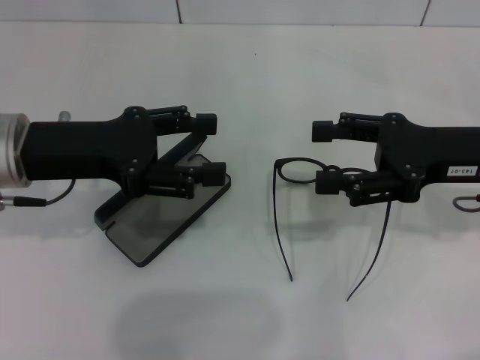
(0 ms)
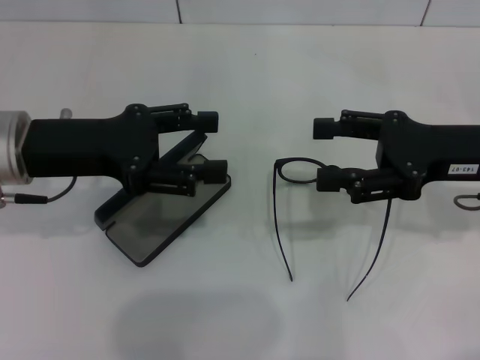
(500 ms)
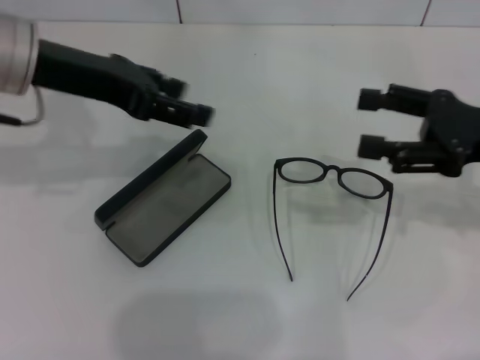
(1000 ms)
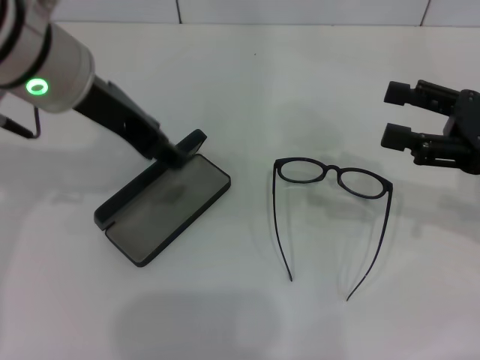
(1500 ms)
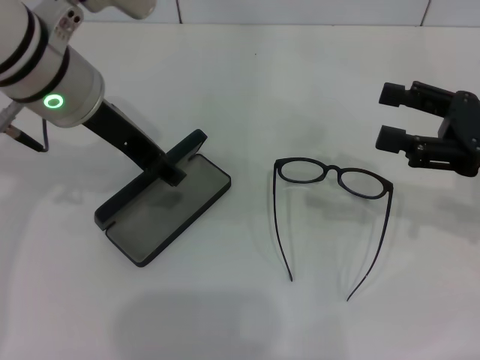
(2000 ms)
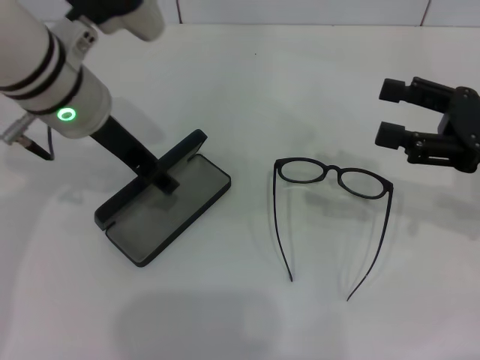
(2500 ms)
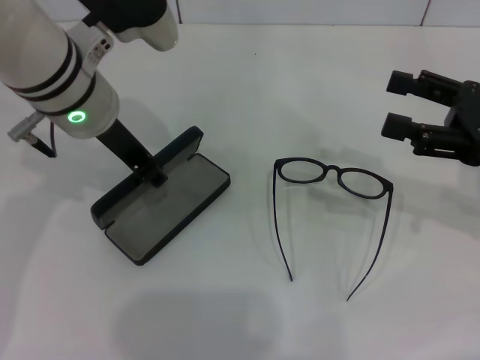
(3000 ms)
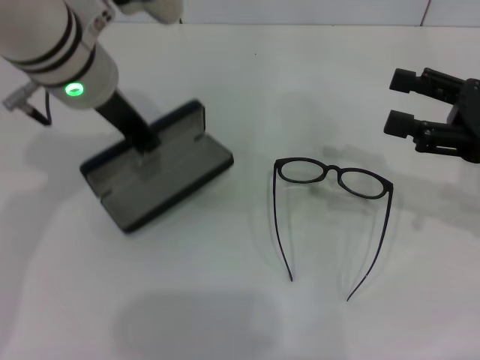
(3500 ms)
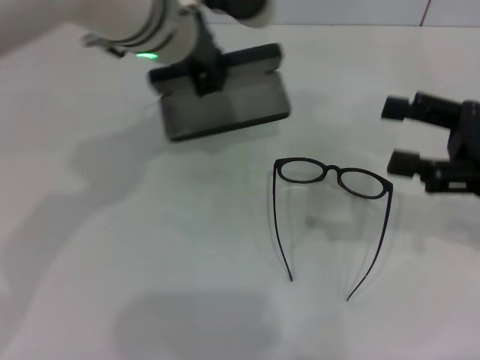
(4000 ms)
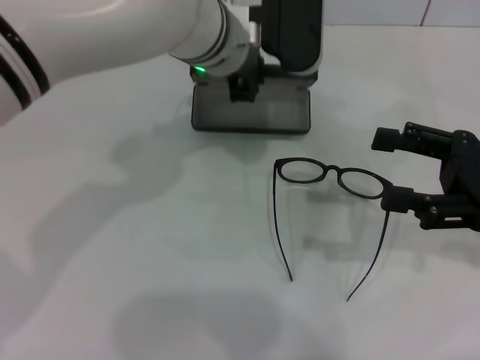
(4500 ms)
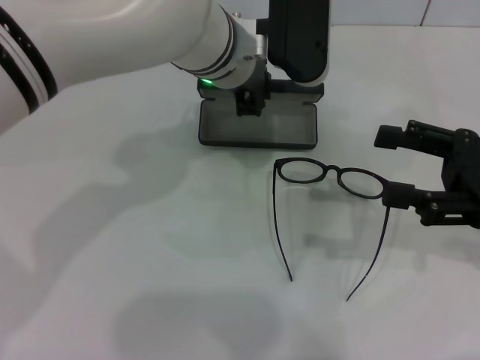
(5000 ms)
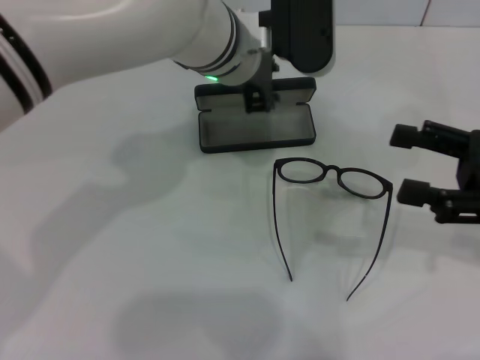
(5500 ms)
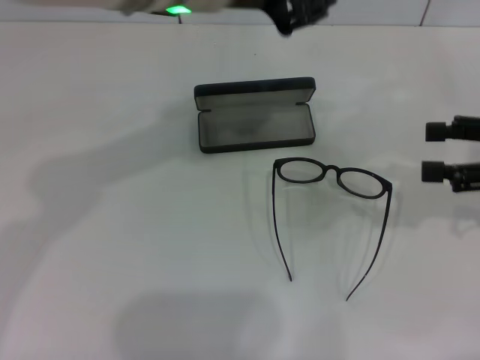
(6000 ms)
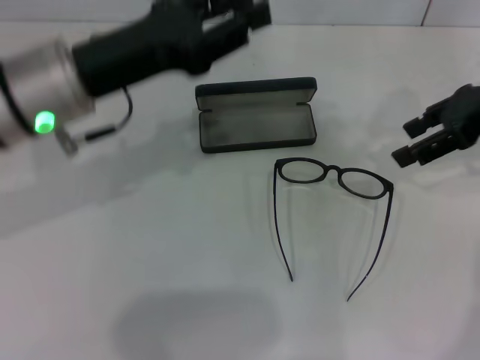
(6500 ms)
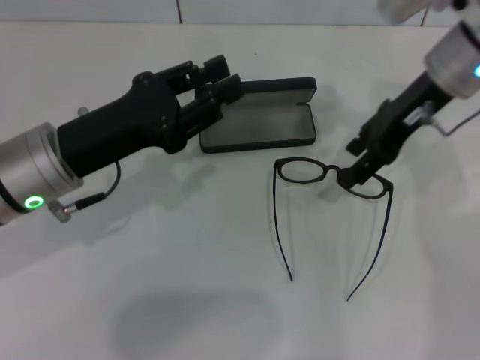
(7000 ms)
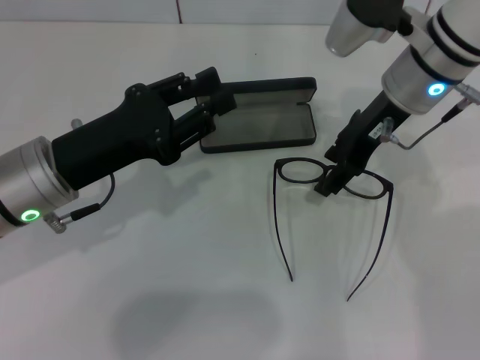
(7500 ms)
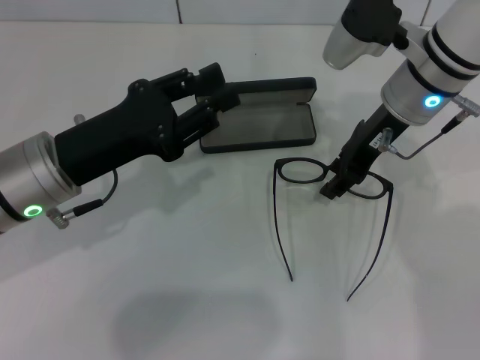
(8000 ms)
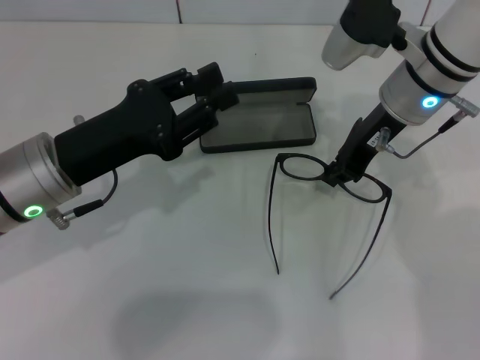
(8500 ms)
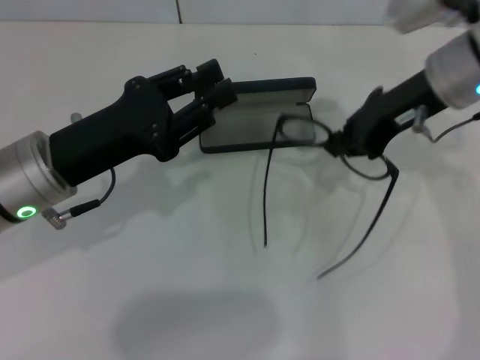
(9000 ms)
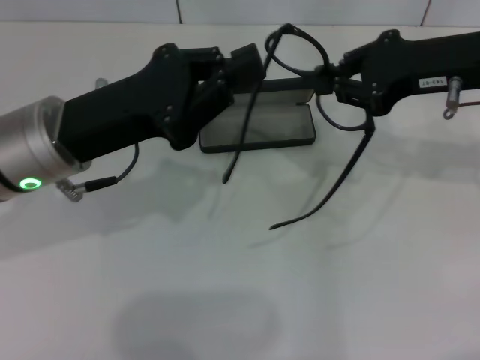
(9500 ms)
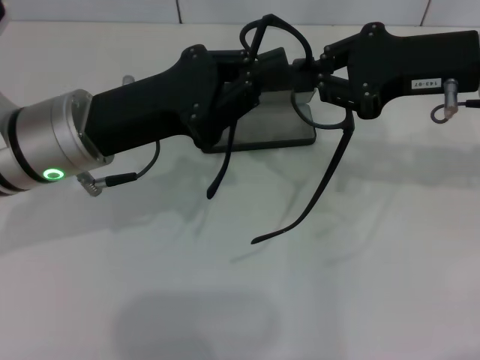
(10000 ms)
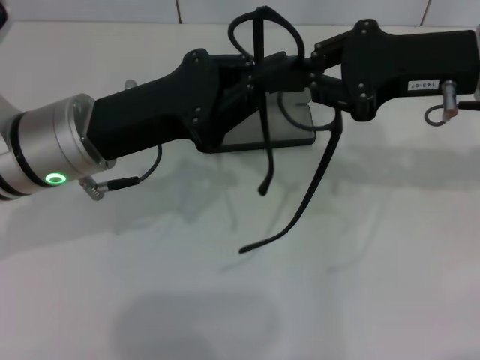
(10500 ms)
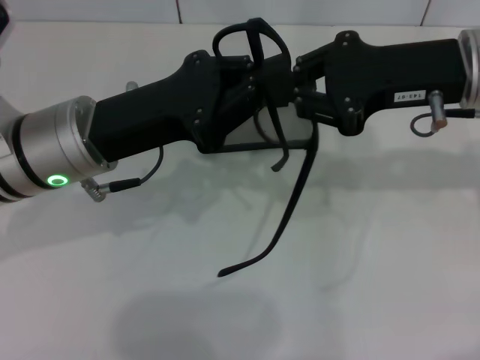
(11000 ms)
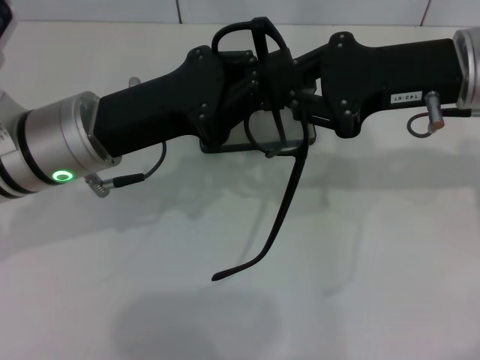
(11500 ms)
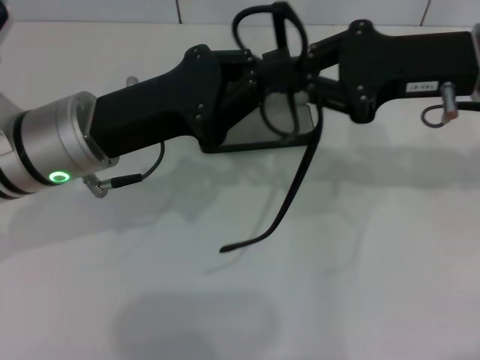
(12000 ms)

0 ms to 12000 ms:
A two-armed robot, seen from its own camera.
Step, 0 ms to 2500 ms: Grab the glasses case with your left hand.
Step, 3000 ms to 5500 ms: Place the glasses case in the center of the table with your left hand.
Step, 6000 ms to 8000 ms: Grab the eyeglass frame with your right hand.
0 ms to 2000 ms: The left gripper shifts roughly 10 cm to the right and upward, while the right gripper shifts by some 5 cm.
2000 ms to 4000 ms: The left gripper shifts roughly 10 cm to the right, and closes up.
4000 ms to 6000 ms: The left gripper heads upward, covering about 5 cm.
6000 ms to 8000 ms: The left gripper goes approximately 20 cm downward and to the left. Meanwhile the right gripper goes some 20 cm to the left and forward.
8000 ms to 10000 ms: The right gripper shifts some 10 cm to the right, backward and upward, and closes its fingers. The left gripper moves roughly 5 cm, and closes.
10000 ms to 12000 ms: The grippers make only small movements.

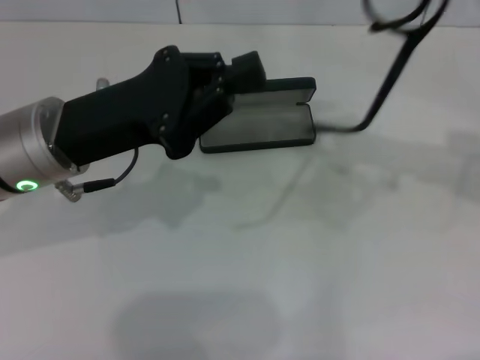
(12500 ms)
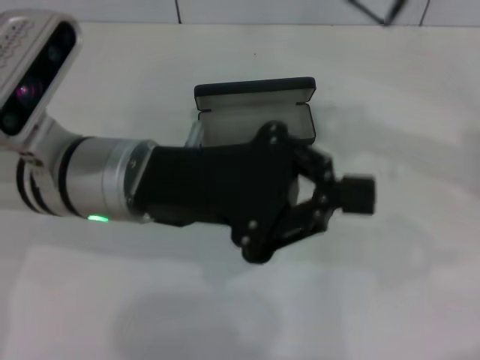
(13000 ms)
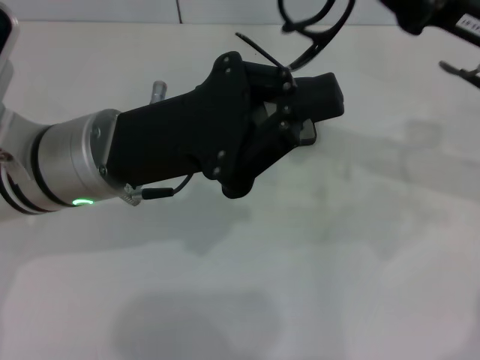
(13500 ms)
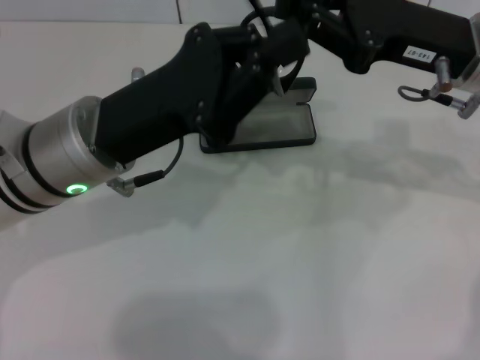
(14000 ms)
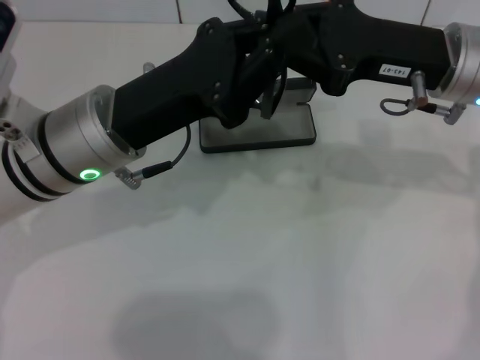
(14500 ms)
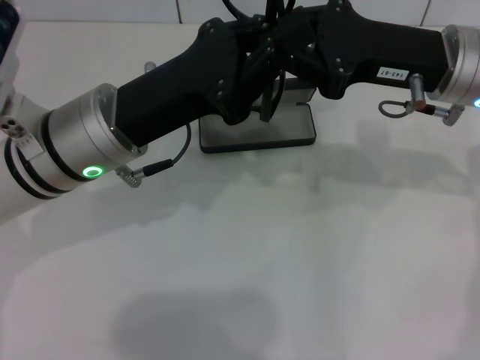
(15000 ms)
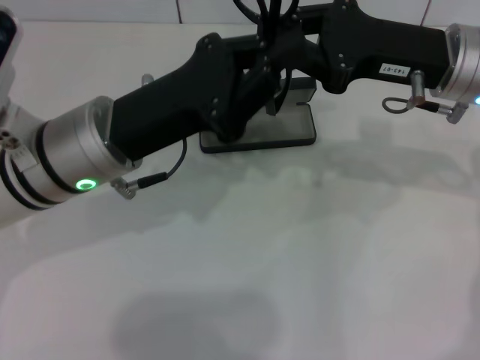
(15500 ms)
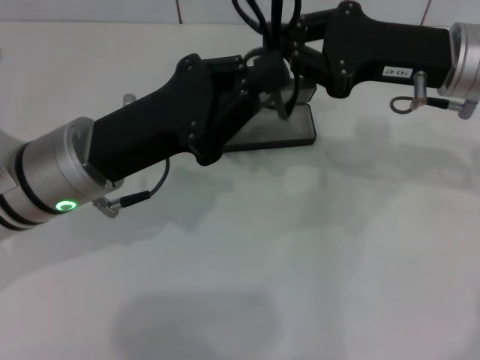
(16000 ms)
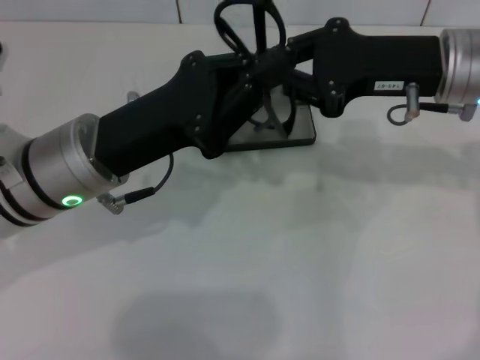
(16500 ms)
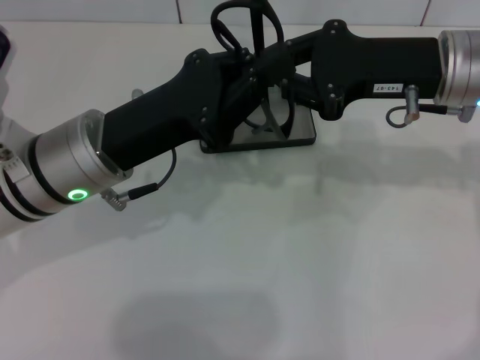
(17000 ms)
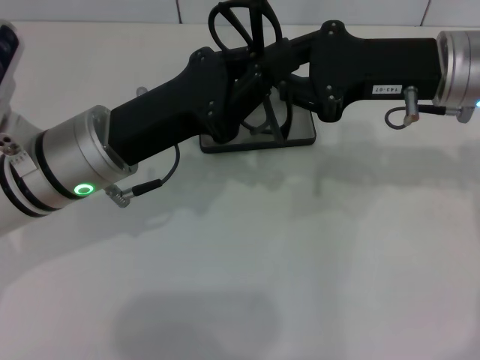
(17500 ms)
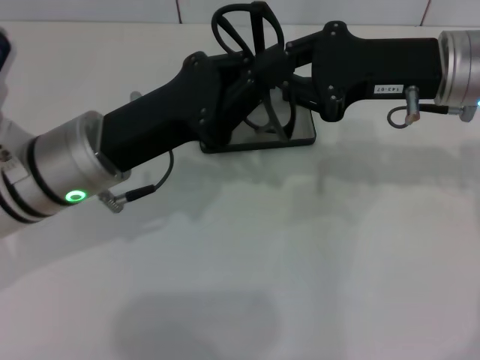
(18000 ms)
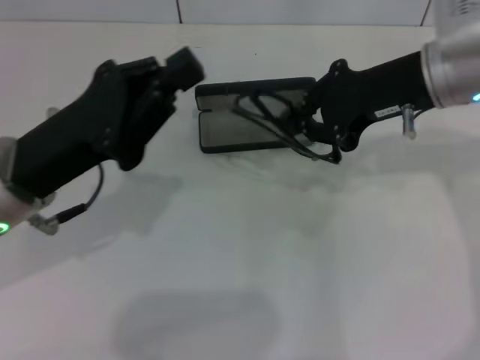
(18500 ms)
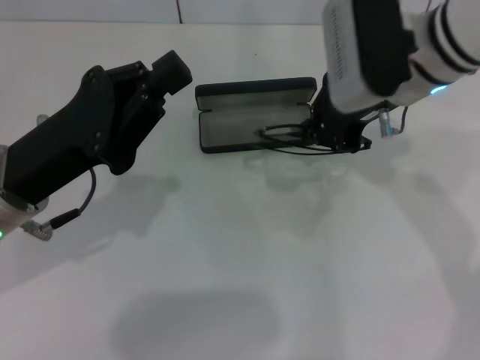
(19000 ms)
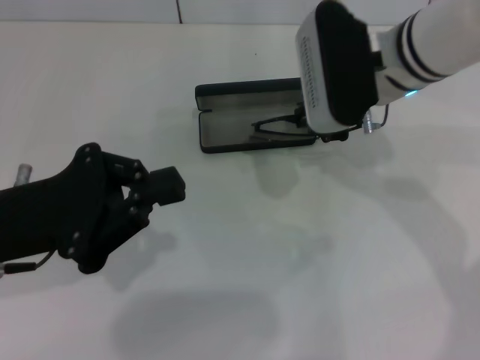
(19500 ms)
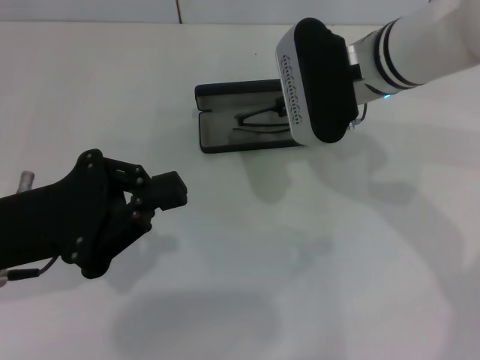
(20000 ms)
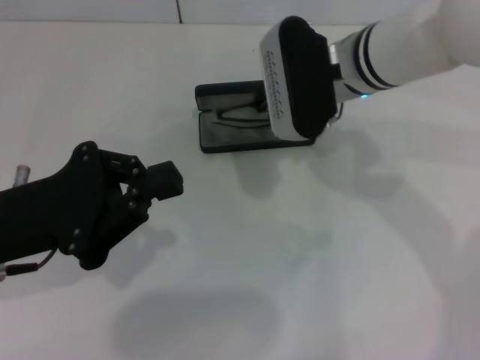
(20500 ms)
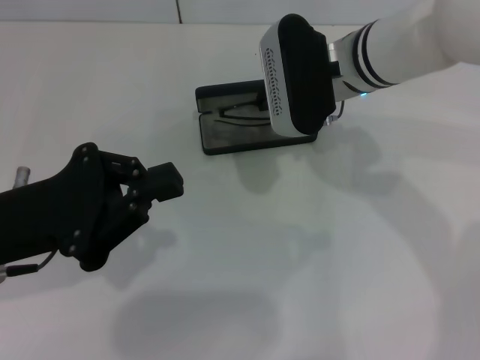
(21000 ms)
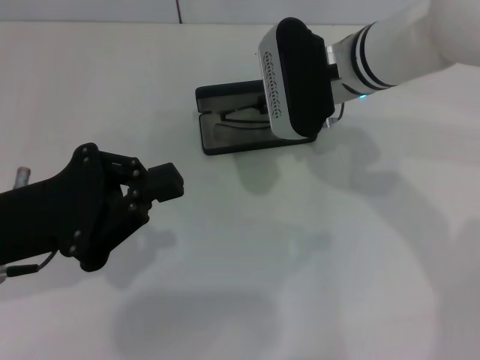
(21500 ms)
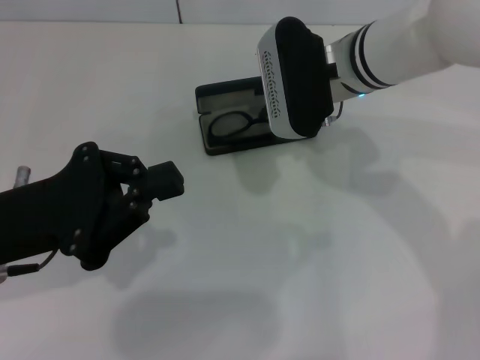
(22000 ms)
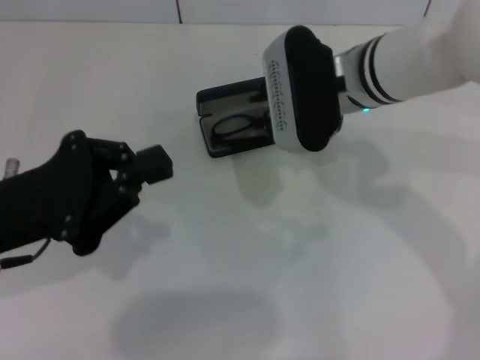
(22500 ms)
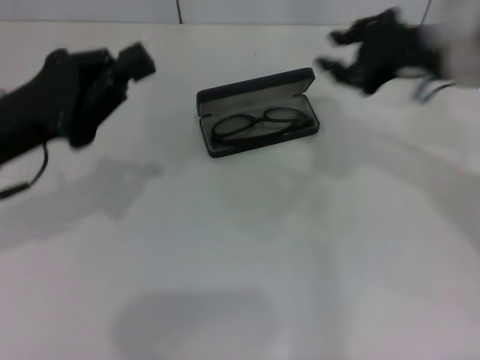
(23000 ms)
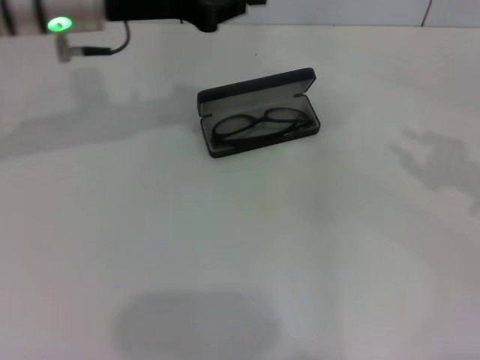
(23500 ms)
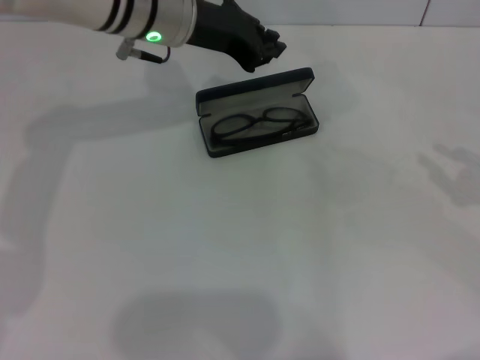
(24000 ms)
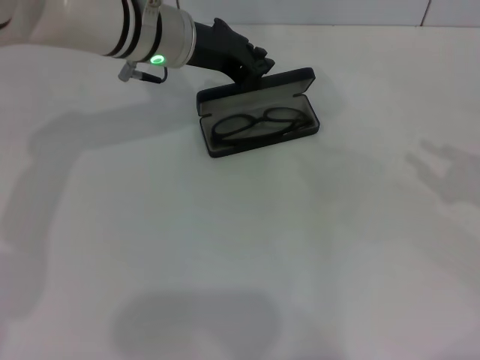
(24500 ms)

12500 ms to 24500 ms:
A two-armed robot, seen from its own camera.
Step, 12500 ms to 16000 ms: Fold the frame with your left hand.
Step, 17000 ms to 22000 ms: Put the glasses into the case with your right hand.
12500 ms to 14500 ms: The right gripper moves to the left and downward, roughly 10 cm.
14500 ms to 16500 ms: The grippers make only small movements.
16500 ms to 18500 ms: The left gripper travels to the left by some 5 cm.
18500 ms to 20500 ms: The right gripper heads to the left, covering approximately 10 cm.
20500 ms to 22500 ms: The right gripper opens.
22500 ms to 24500 ms: The left gripper goes roughly 25 cm forward and to the right. Meanwhile the right gripper is displaced to the right and backward by about 30 cm.

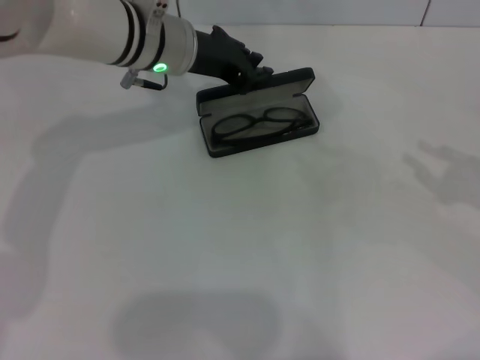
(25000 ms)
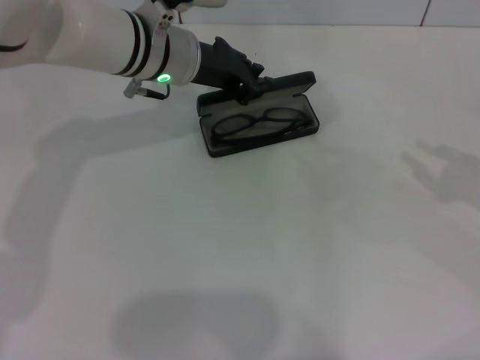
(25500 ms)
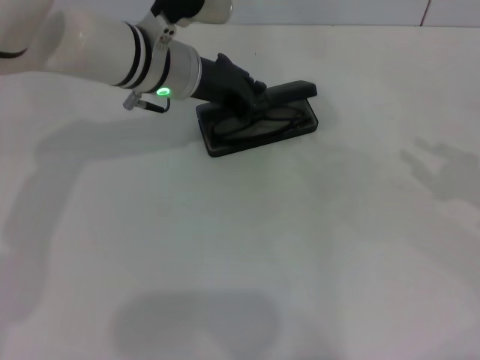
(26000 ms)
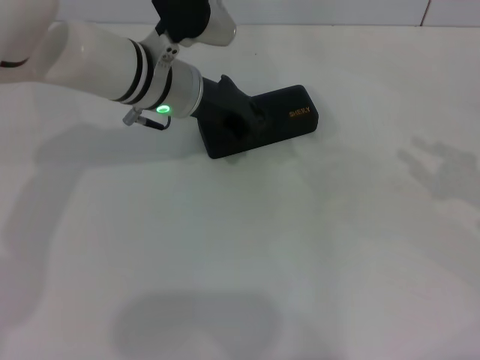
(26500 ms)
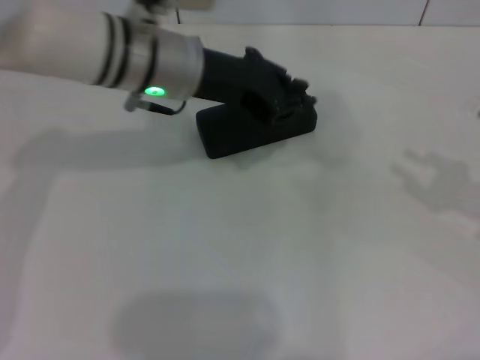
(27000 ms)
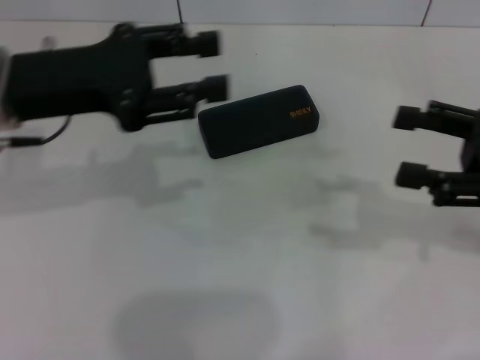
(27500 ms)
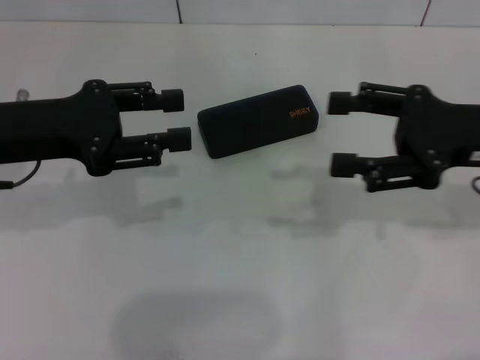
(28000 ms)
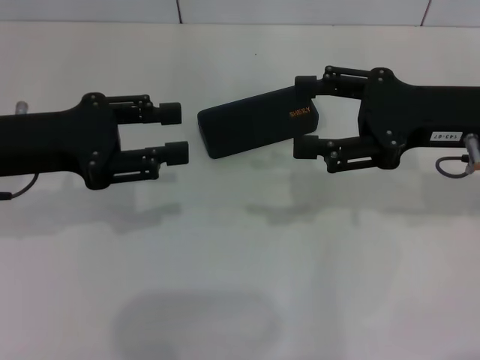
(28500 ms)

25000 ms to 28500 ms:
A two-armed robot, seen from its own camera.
Step, 25000 ms to 27000 ms: Close the glasses case with your left hand.
25000 ms to 27000 ms: The left gripper moves about 5 cm.
27000 ms to 28500 ms: The left gripper travels to the left and backward by approximately 20 cm, and opens. Meanwhile the right gripper moves to the left and forward, about 15 cm, and opens up.
